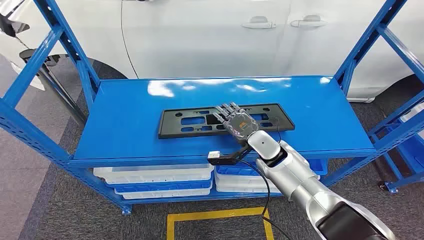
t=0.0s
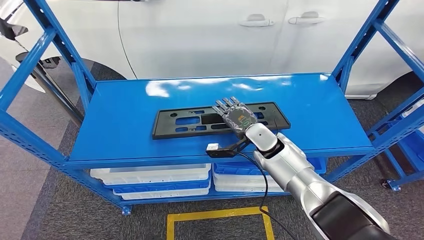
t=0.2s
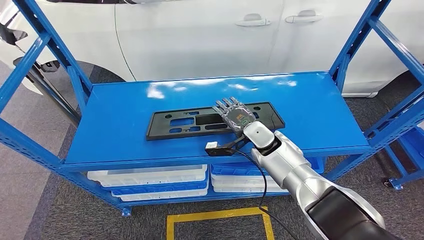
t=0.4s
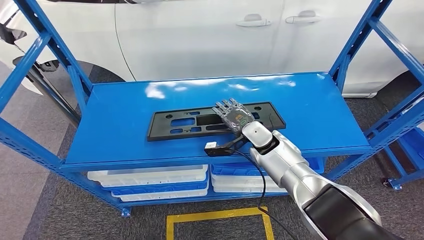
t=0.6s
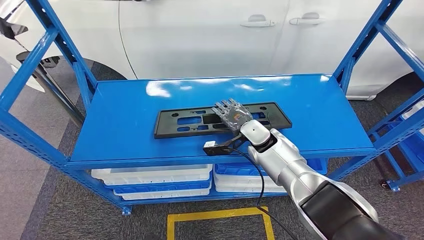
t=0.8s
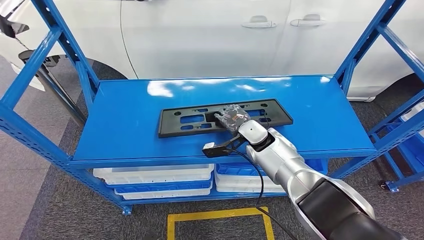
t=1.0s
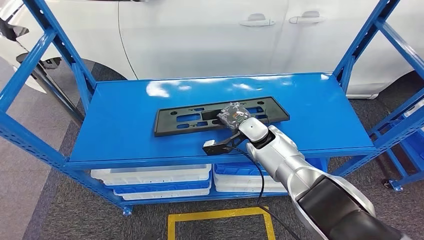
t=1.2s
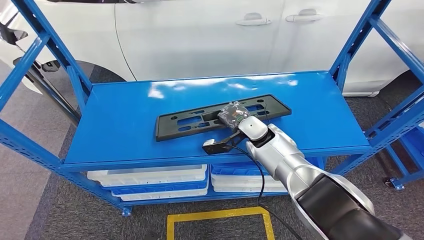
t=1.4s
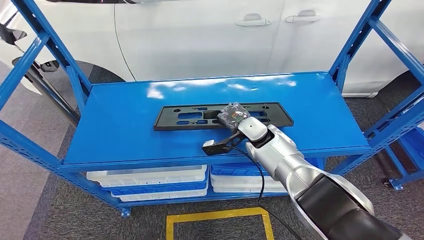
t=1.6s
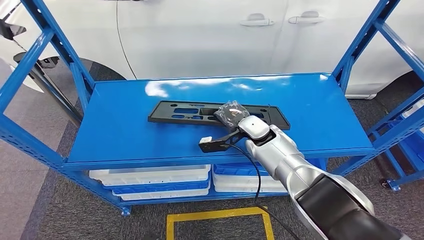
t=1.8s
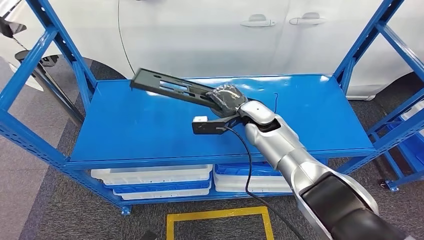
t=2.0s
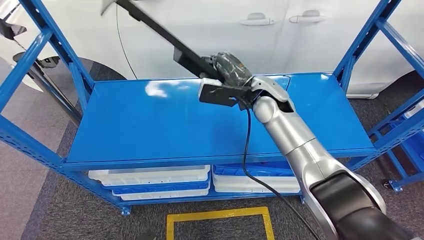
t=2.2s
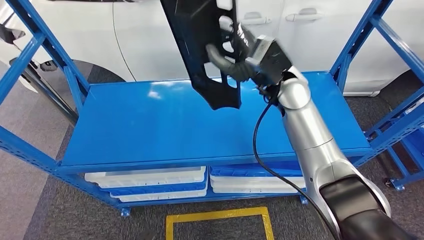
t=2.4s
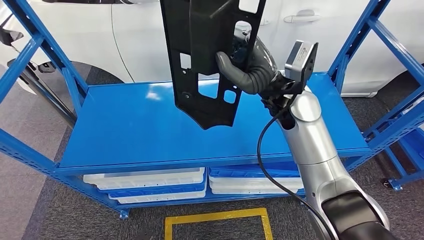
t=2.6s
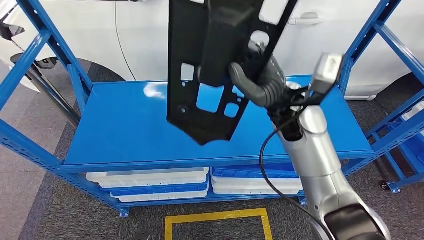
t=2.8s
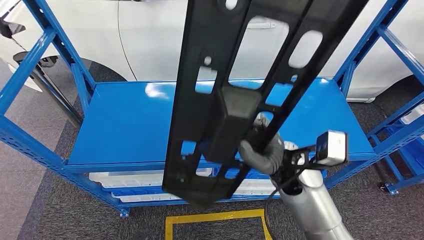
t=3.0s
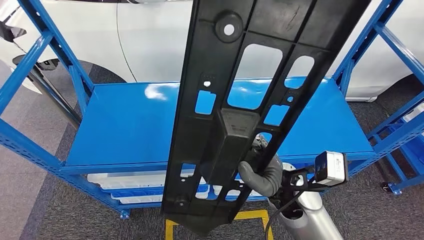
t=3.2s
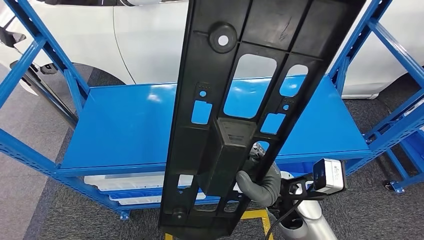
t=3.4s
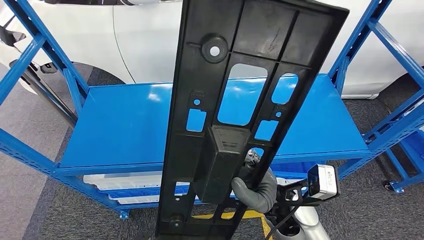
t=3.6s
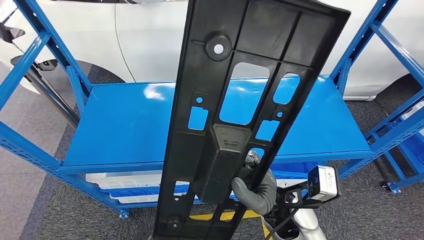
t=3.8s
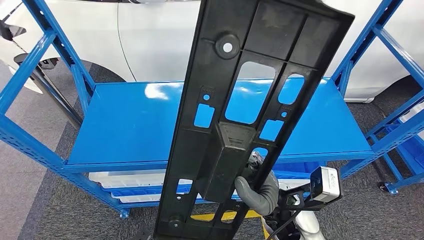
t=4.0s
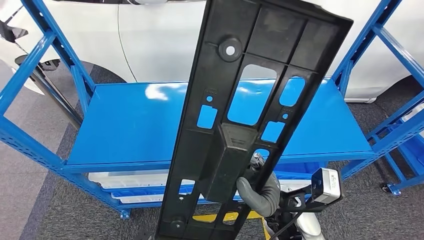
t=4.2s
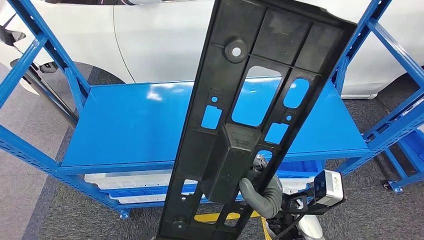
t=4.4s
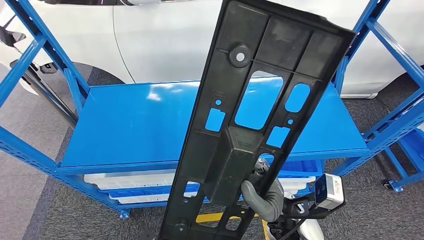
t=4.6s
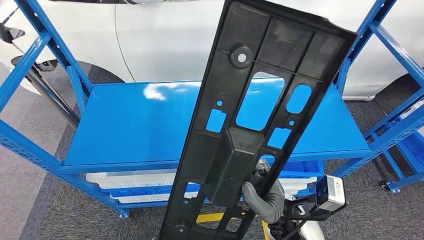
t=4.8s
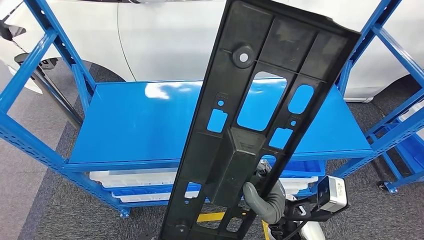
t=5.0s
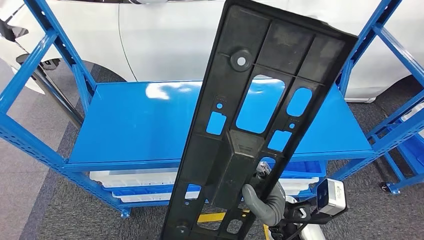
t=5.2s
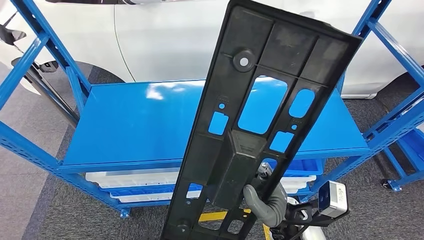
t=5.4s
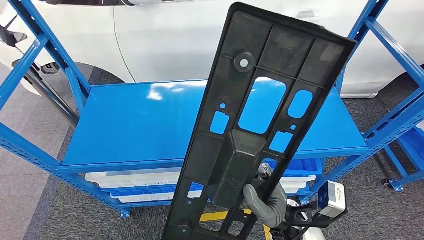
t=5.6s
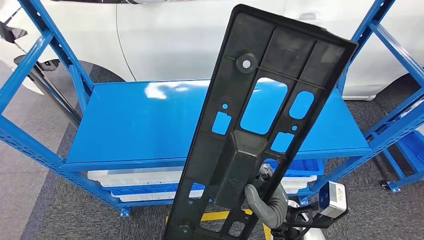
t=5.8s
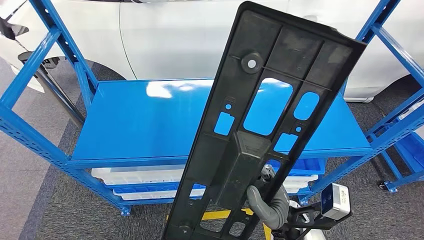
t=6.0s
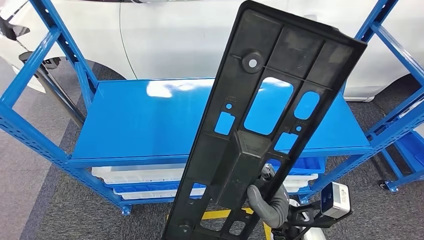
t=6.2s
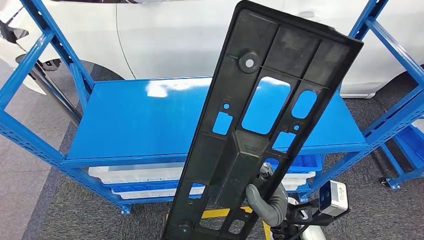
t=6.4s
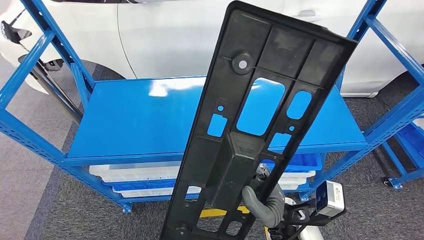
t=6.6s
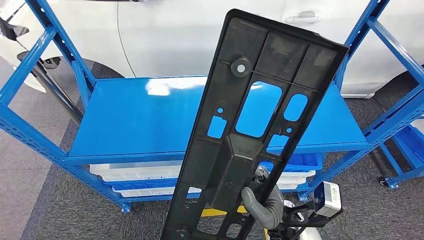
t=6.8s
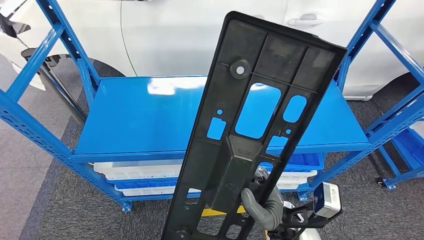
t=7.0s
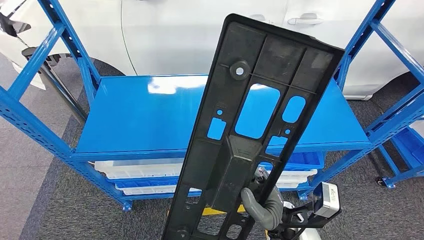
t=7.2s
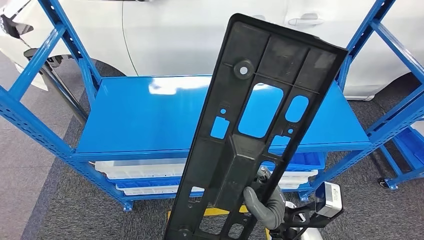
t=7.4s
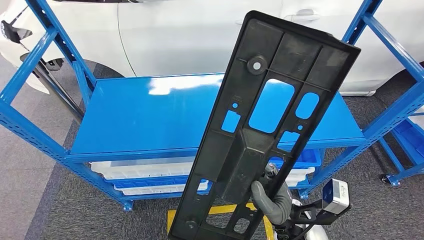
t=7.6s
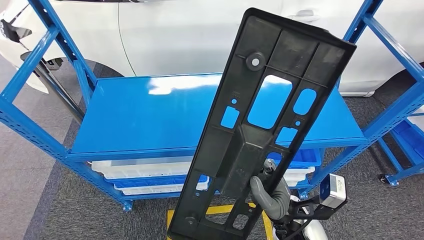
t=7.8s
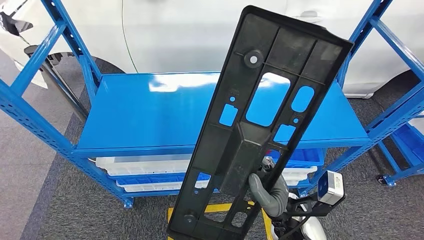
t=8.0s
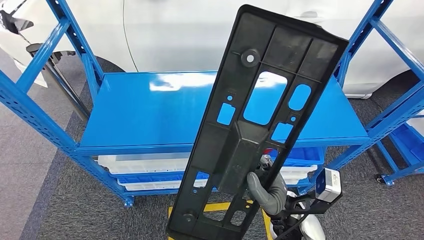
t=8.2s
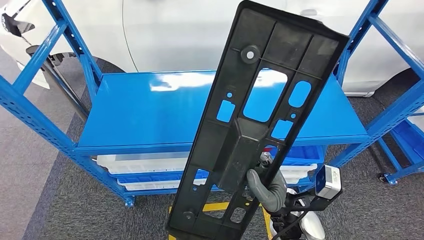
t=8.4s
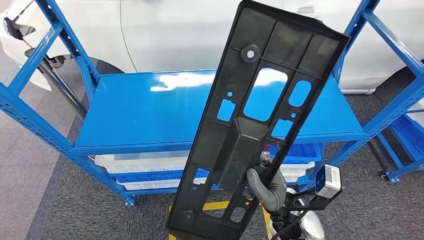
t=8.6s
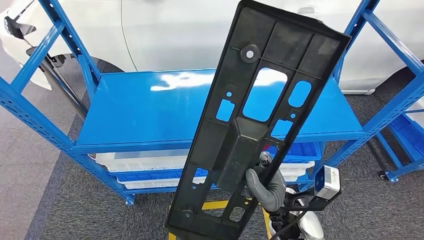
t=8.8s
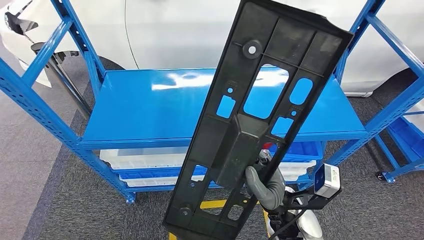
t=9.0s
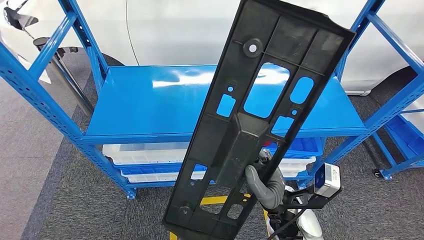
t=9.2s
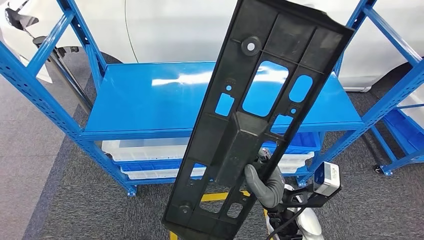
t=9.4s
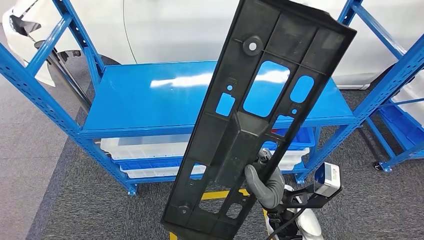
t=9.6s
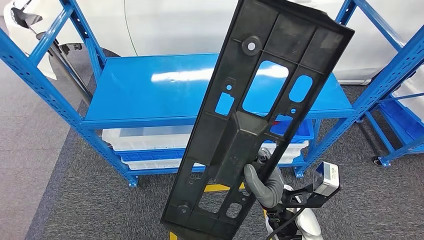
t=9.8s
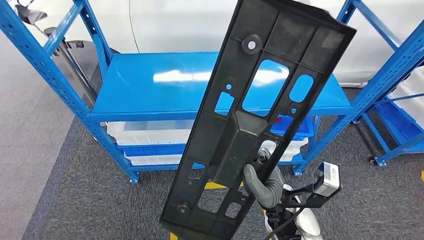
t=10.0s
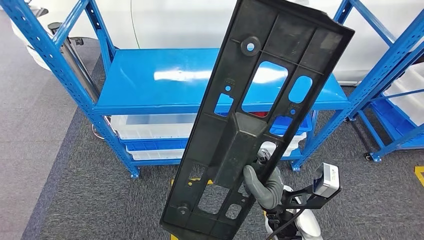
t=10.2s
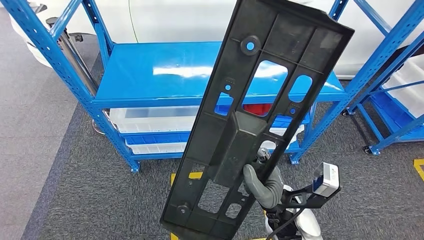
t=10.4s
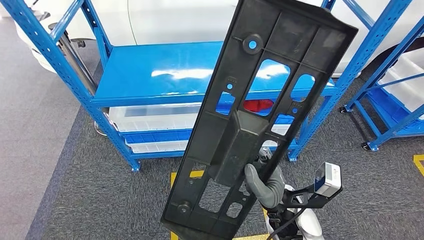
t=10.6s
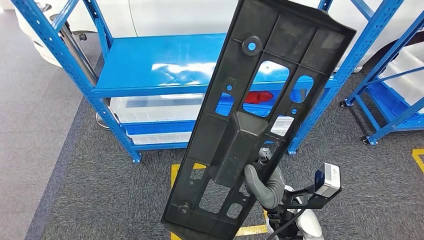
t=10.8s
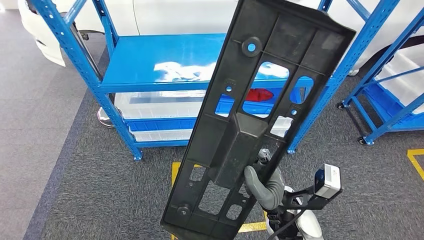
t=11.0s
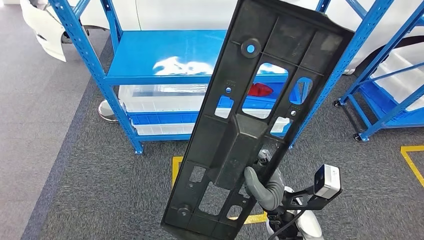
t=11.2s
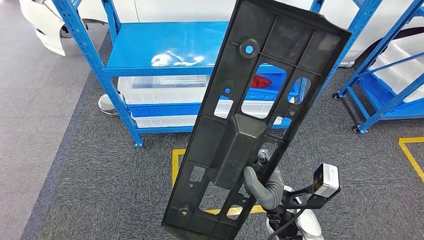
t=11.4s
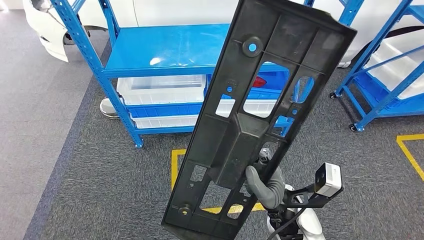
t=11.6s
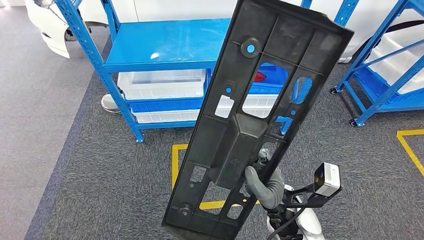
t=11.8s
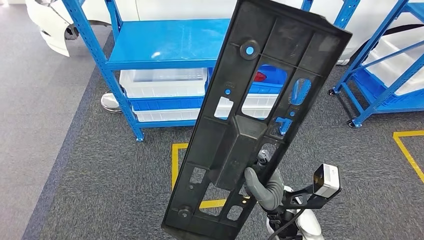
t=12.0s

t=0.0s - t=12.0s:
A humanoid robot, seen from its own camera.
Step, t=0.0s - t=4.6s: Pick up the large material from the shelf.

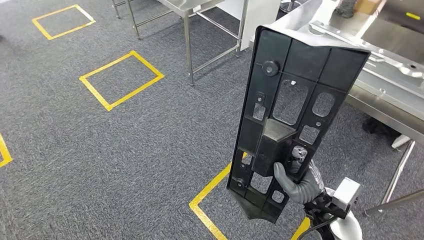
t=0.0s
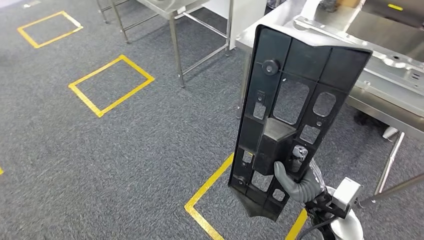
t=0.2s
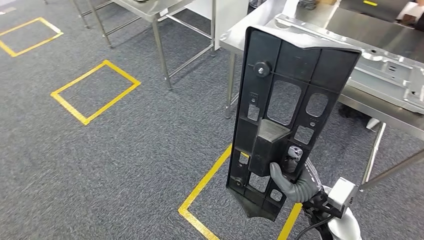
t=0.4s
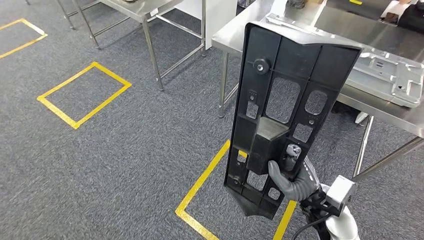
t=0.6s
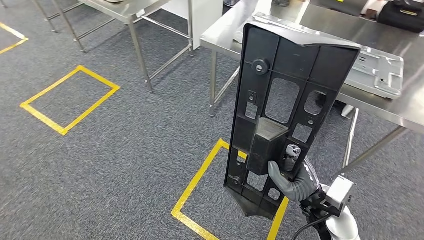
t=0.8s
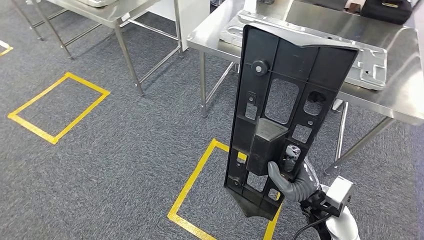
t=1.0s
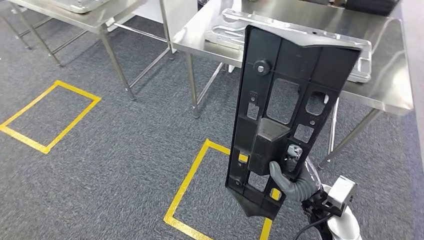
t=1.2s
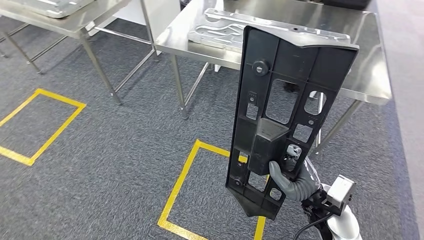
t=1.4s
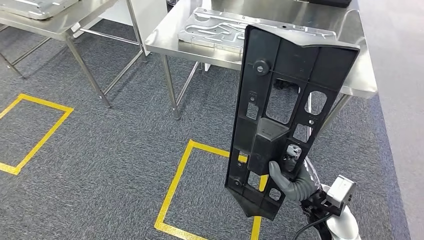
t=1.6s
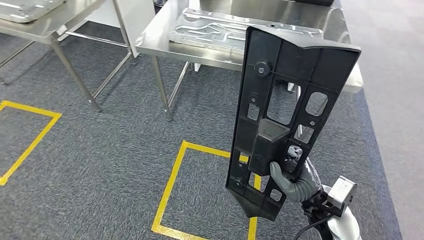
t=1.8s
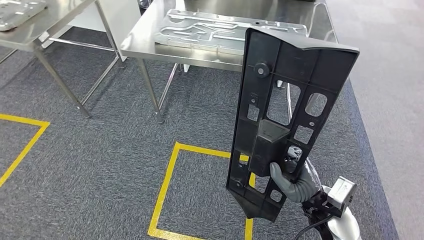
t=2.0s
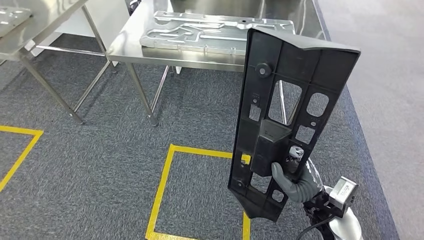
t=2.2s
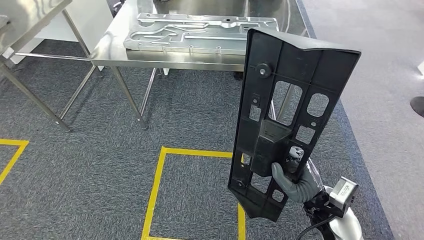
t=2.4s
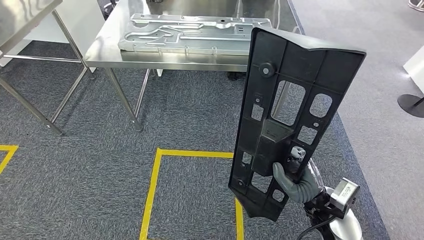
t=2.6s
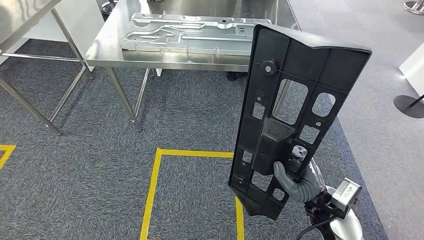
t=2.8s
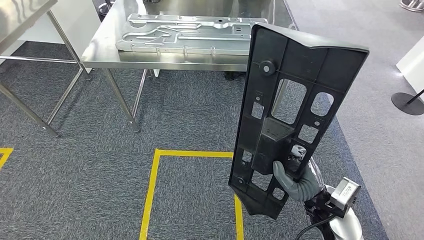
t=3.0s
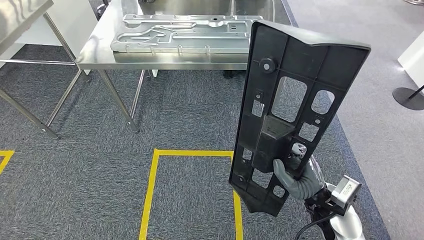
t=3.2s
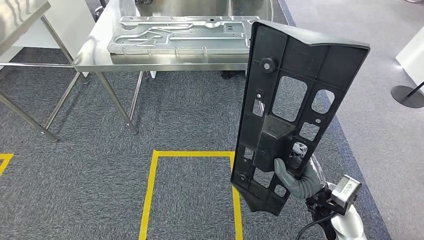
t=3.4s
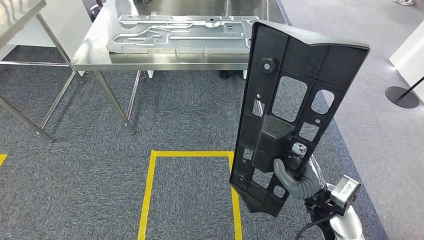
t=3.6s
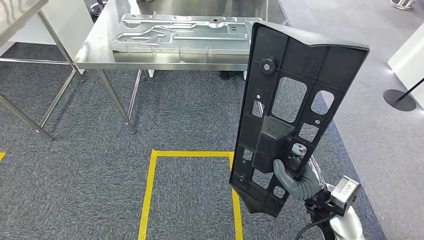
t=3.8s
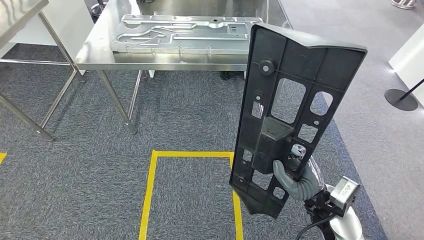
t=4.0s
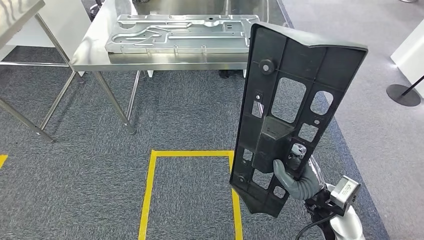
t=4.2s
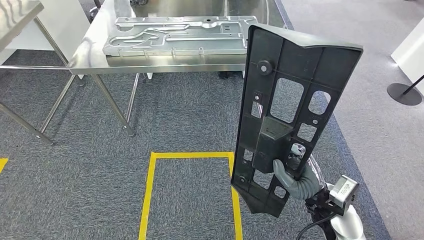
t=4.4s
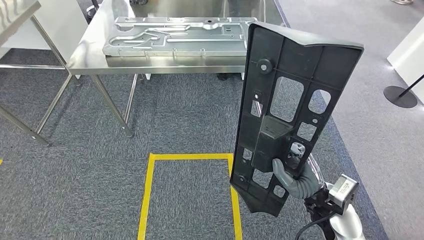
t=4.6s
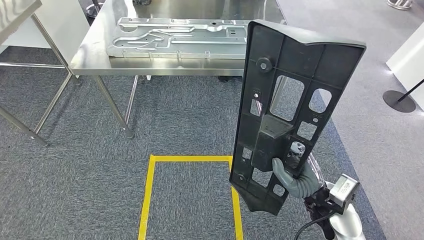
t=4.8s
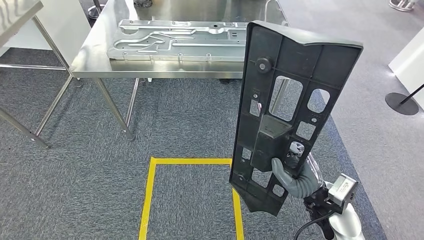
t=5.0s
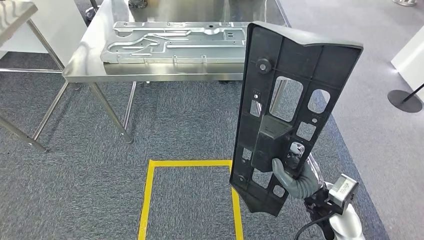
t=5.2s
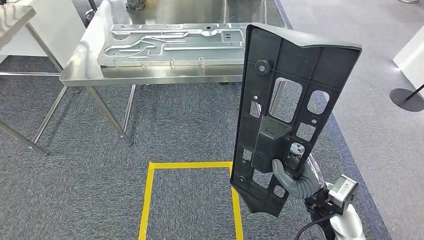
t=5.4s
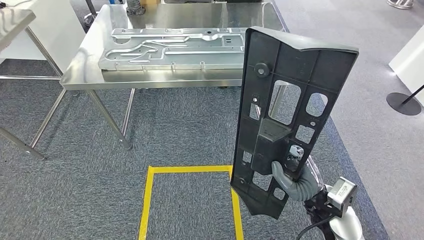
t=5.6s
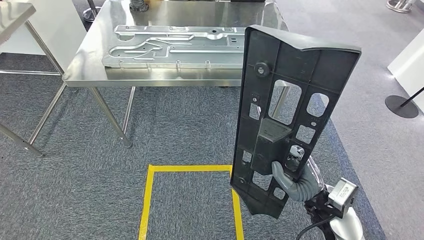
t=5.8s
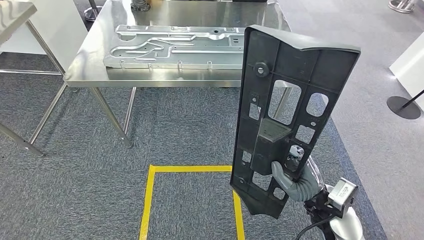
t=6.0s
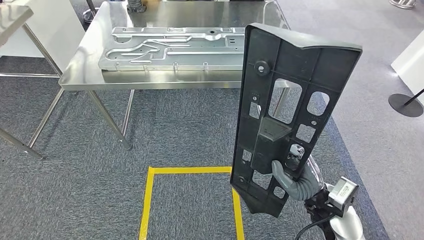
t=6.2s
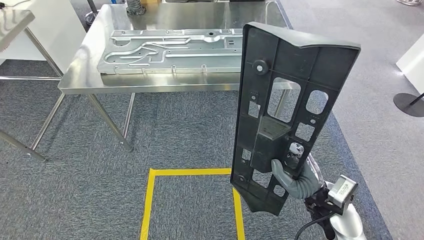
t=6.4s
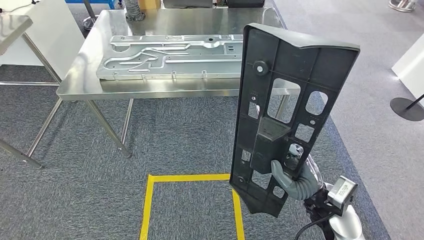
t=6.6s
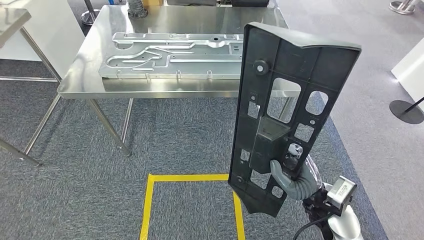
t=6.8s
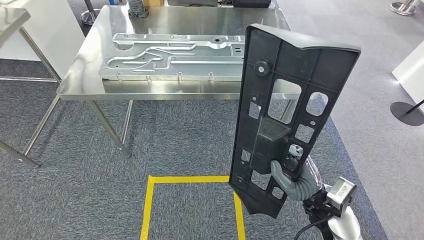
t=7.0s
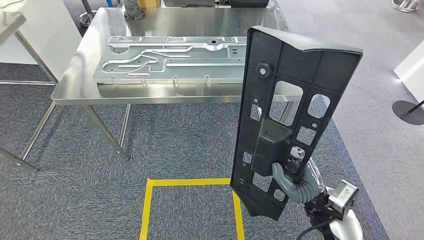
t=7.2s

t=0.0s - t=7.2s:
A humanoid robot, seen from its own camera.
t=5.8s - t=7.2s: Neither hand changes place.
